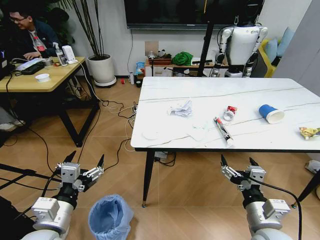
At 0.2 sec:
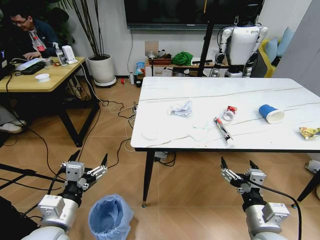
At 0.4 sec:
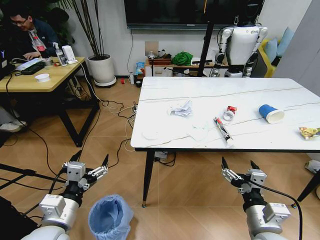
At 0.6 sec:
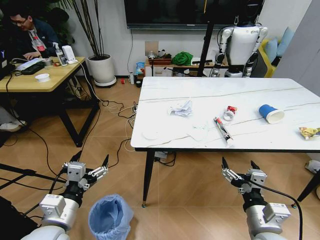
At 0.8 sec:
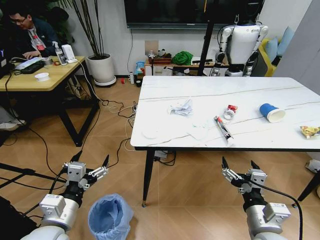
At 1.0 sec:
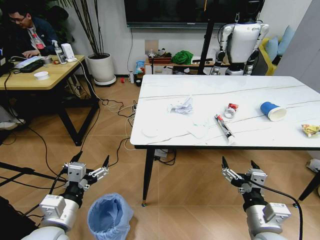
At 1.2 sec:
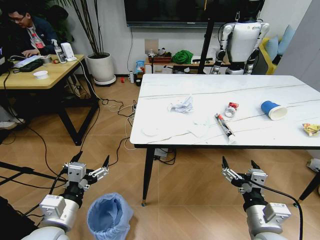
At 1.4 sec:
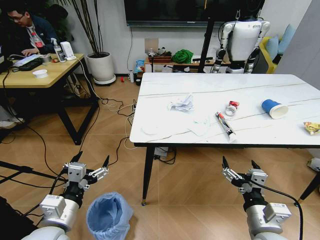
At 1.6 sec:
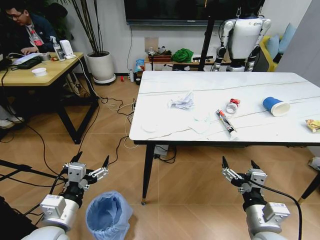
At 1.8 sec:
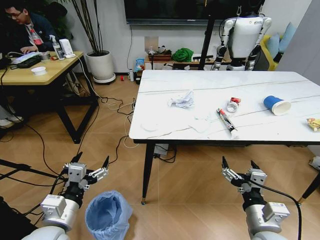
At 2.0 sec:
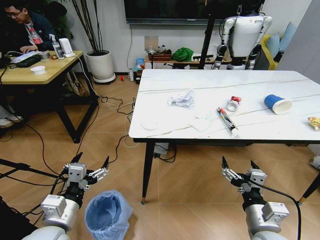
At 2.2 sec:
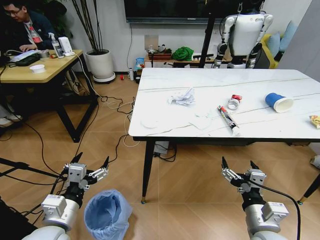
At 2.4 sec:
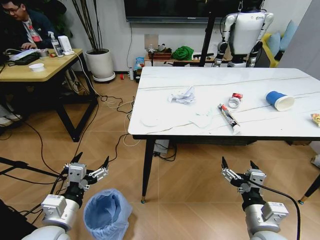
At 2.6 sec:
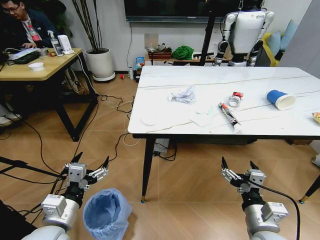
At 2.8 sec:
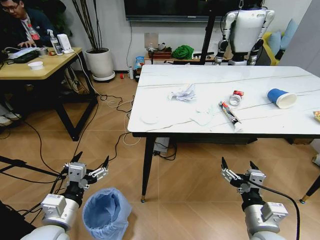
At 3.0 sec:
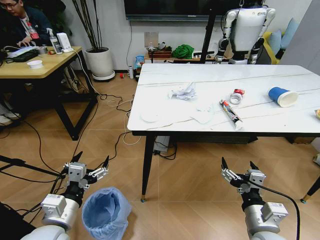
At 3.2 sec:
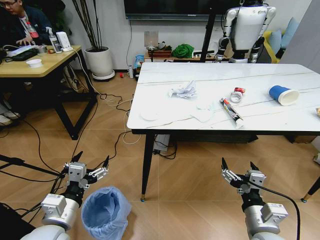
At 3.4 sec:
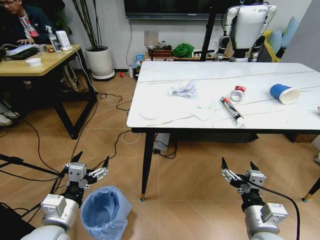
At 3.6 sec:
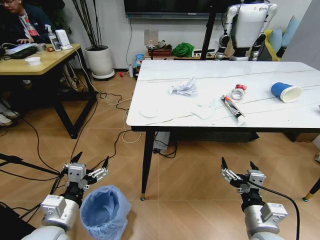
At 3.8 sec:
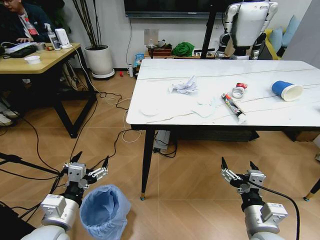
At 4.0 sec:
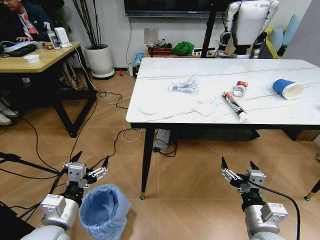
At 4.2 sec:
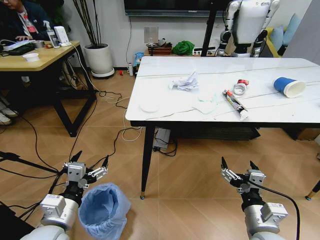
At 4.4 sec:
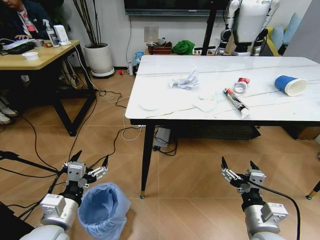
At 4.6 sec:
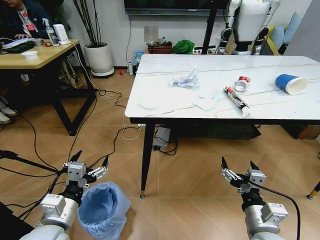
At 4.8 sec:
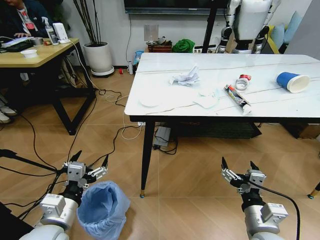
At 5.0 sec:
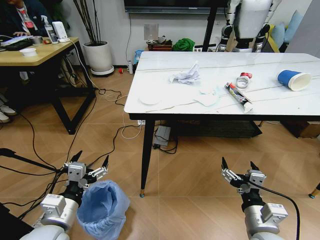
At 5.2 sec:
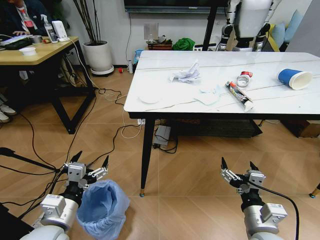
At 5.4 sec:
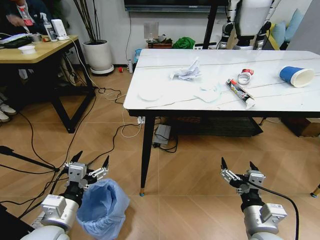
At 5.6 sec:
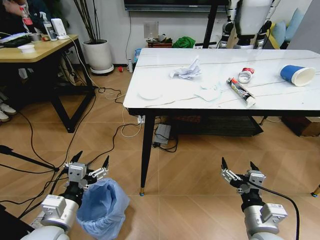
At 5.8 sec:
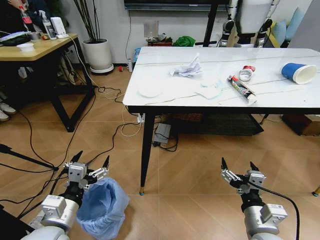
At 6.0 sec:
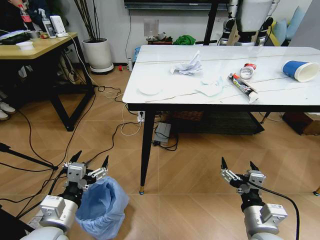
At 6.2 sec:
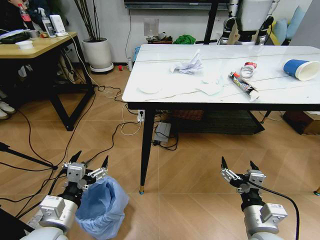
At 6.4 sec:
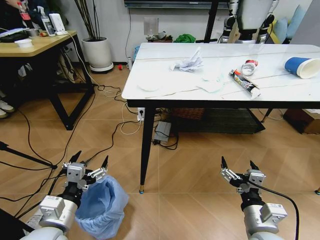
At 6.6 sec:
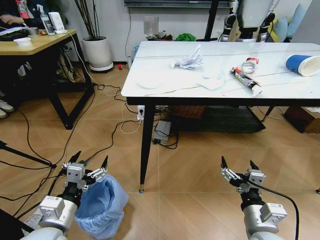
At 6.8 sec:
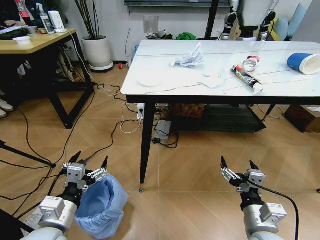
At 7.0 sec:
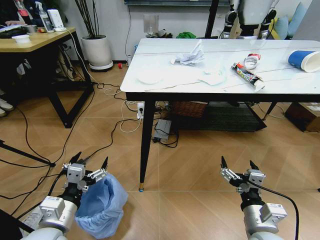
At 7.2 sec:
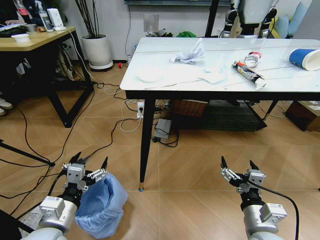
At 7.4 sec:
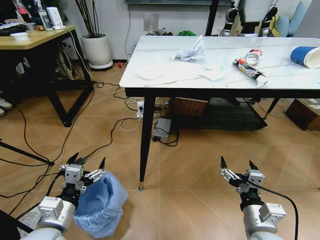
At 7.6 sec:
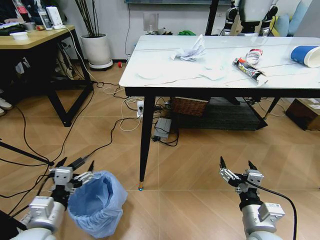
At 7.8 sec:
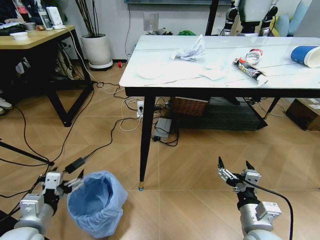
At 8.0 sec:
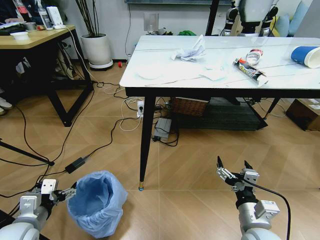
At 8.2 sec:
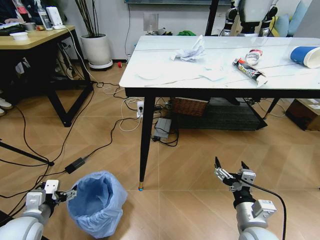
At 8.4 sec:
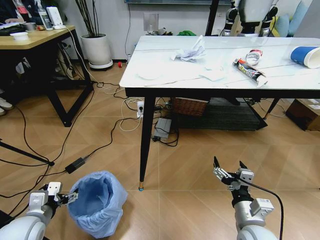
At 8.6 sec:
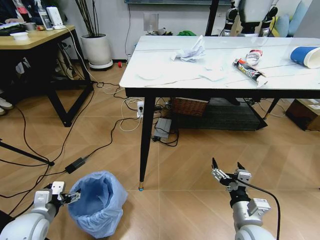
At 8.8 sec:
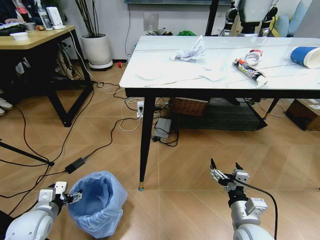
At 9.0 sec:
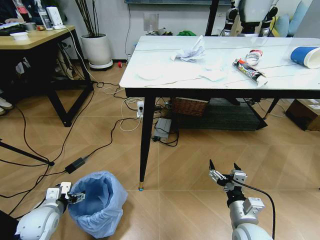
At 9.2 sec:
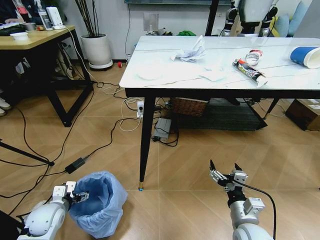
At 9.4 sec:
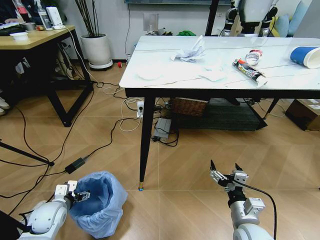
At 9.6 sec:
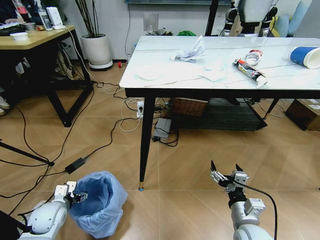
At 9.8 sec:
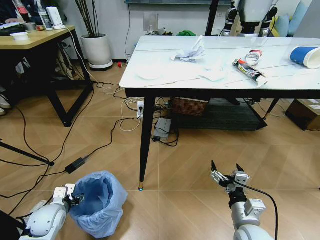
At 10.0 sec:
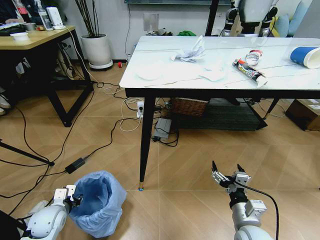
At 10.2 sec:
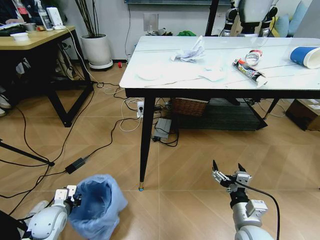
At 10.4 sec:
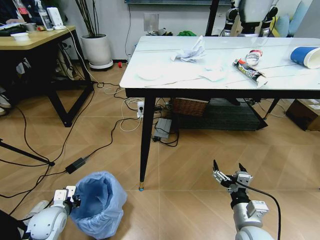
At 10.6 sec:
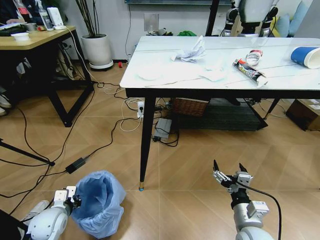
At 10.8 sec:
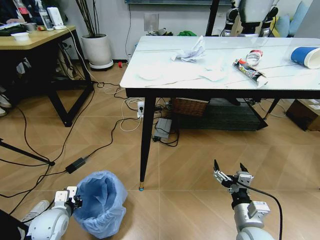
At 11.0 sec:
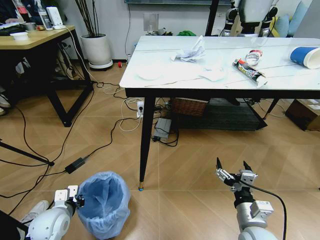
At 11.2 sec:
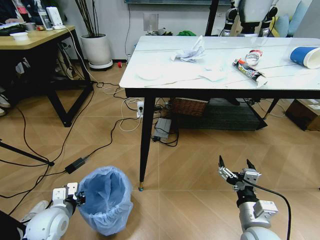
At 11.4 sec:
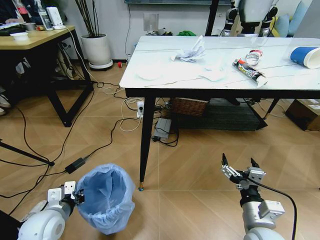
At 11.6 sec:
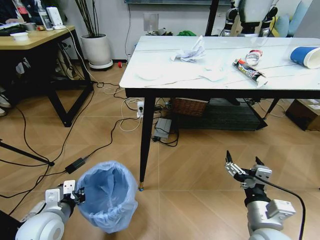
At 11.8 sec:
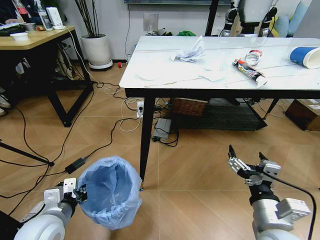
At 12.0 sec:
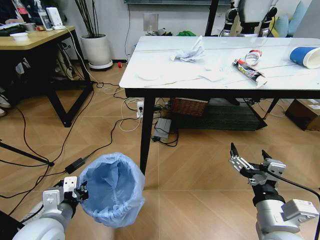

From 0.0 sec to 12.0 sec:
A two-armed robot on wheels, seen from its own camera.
Task of the whole recording: Pick up the trash bin and place the trash from the table into it.
From 7.6 sec to 9.0 sec: The left gripper is displaced downward, forward and to the left by approximately 15 cm. Meanwhile the right gripper changes place by approximately 5 cm.
From 9.0 sec to 10.4 sec: The left gripper closes its fingers.
From 10.4 sec to 12.0 sec: The left gripper heads upward, to the right and backward, covering about 20 cm; the right gripper is displaced upward by some 10 cm.

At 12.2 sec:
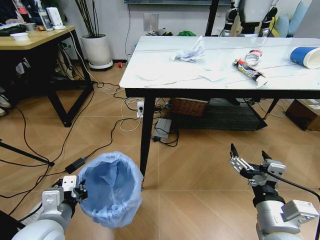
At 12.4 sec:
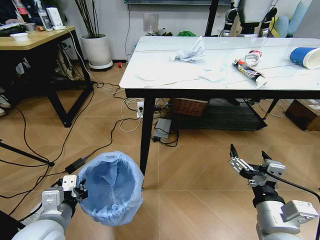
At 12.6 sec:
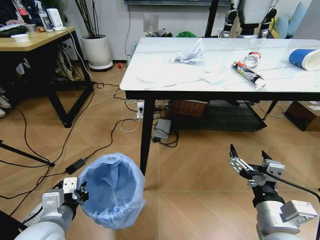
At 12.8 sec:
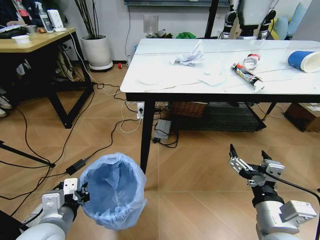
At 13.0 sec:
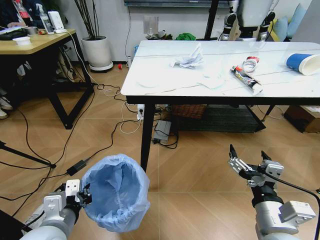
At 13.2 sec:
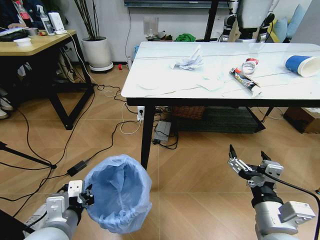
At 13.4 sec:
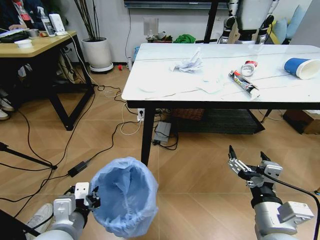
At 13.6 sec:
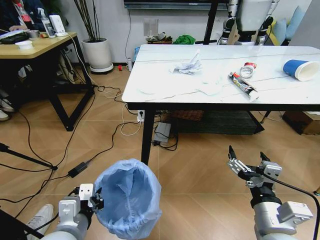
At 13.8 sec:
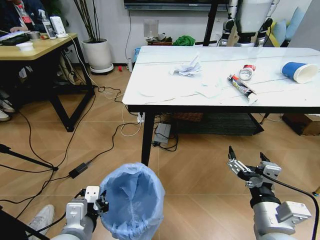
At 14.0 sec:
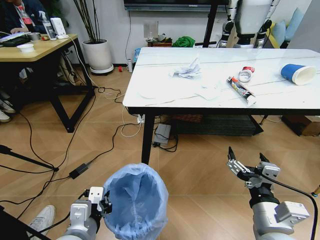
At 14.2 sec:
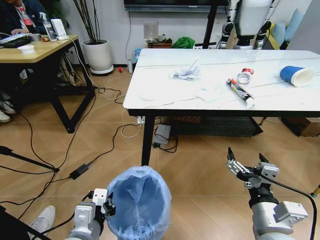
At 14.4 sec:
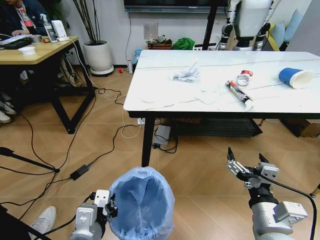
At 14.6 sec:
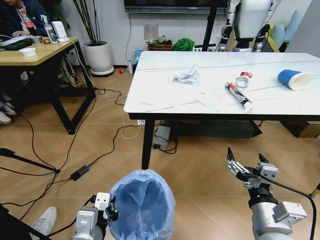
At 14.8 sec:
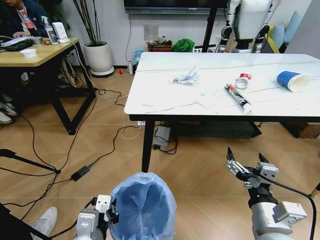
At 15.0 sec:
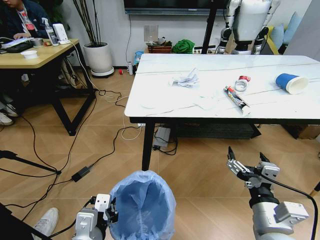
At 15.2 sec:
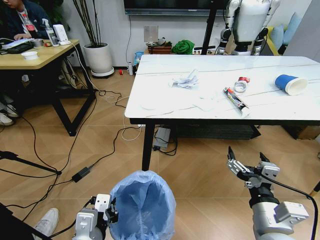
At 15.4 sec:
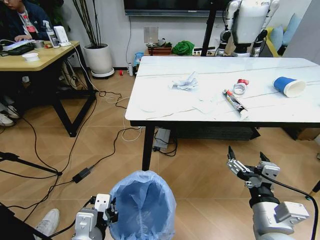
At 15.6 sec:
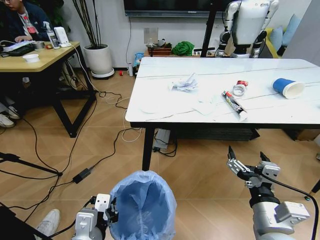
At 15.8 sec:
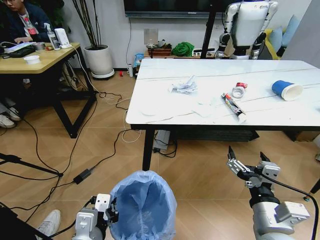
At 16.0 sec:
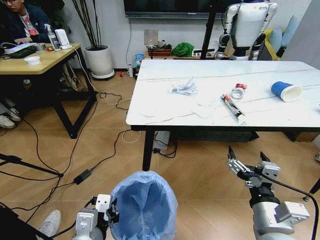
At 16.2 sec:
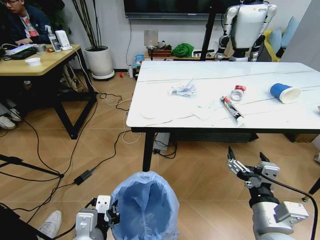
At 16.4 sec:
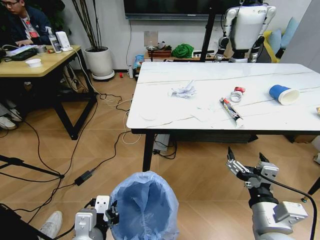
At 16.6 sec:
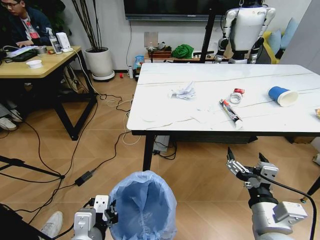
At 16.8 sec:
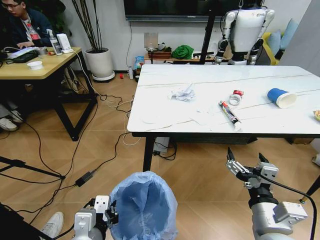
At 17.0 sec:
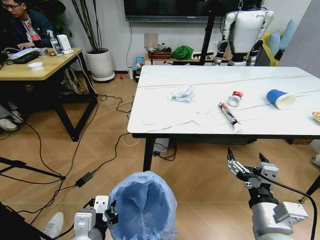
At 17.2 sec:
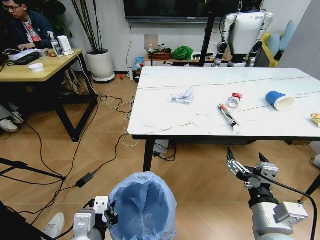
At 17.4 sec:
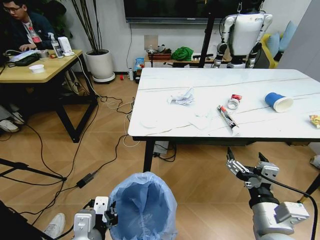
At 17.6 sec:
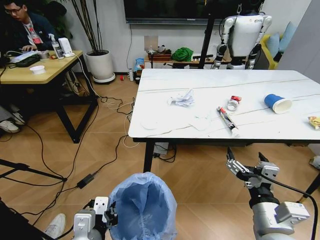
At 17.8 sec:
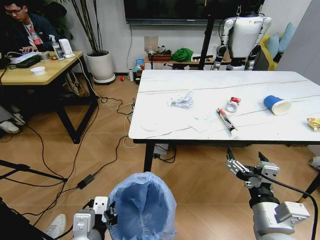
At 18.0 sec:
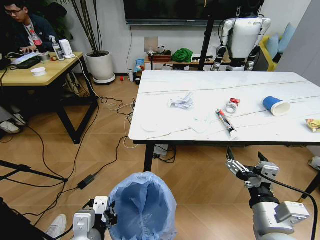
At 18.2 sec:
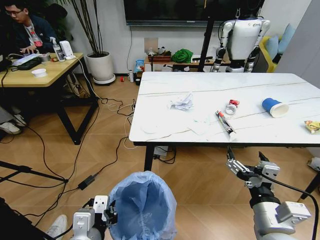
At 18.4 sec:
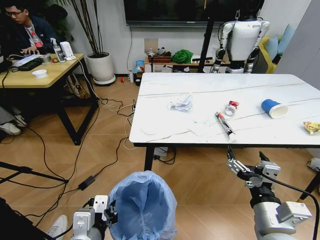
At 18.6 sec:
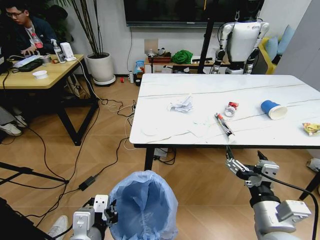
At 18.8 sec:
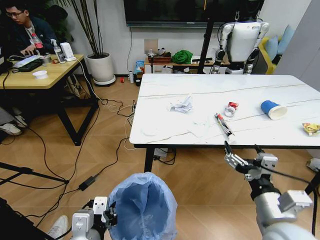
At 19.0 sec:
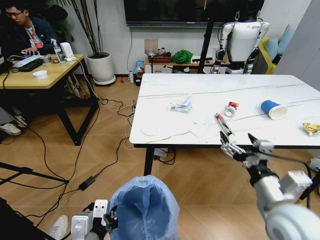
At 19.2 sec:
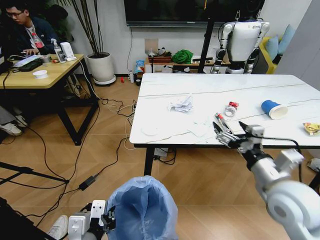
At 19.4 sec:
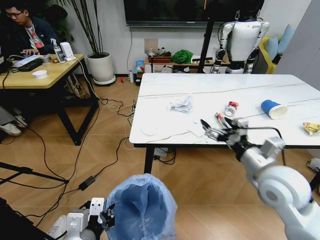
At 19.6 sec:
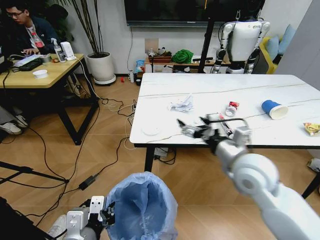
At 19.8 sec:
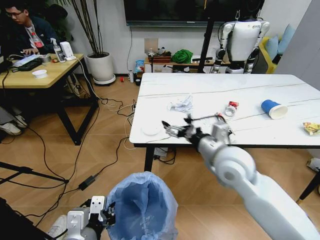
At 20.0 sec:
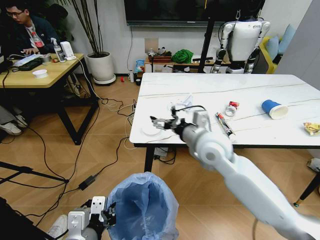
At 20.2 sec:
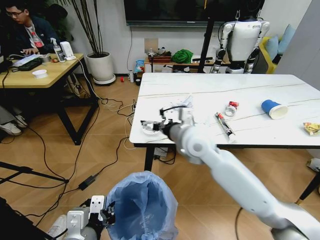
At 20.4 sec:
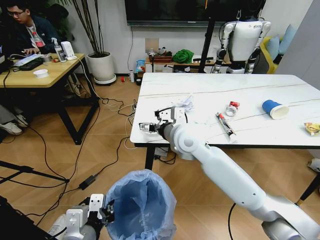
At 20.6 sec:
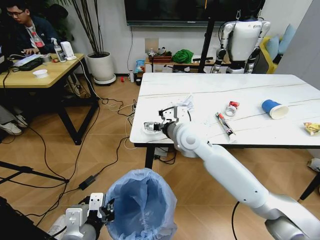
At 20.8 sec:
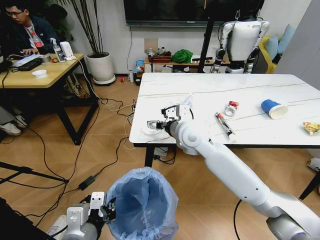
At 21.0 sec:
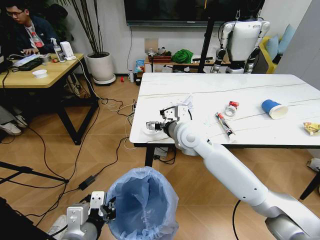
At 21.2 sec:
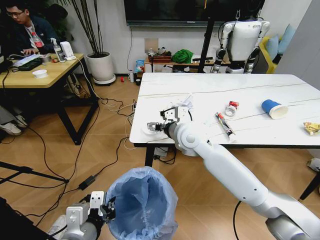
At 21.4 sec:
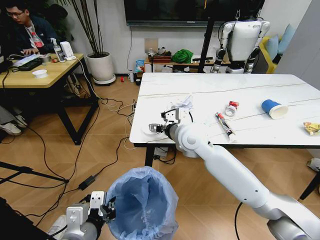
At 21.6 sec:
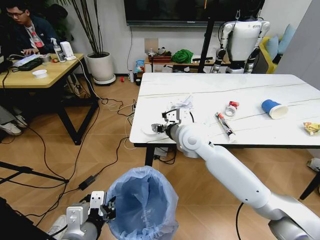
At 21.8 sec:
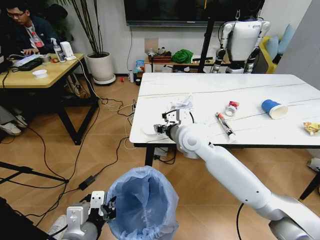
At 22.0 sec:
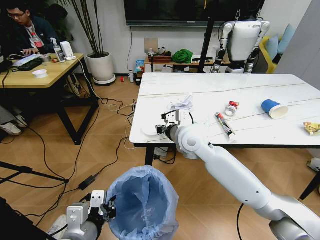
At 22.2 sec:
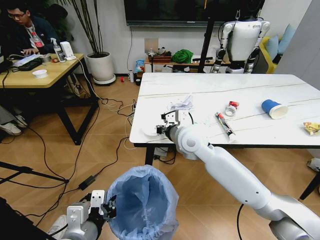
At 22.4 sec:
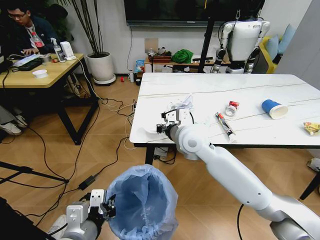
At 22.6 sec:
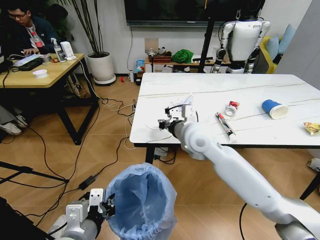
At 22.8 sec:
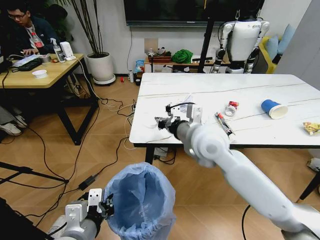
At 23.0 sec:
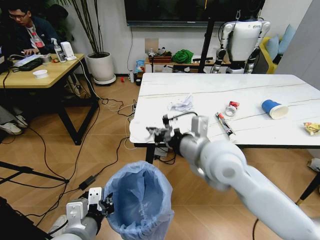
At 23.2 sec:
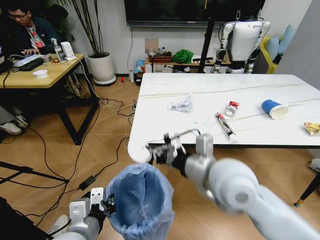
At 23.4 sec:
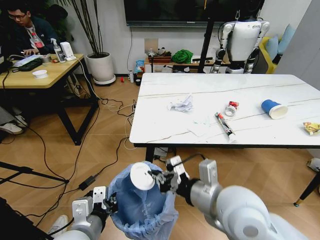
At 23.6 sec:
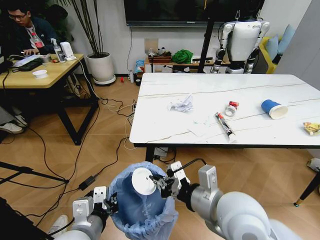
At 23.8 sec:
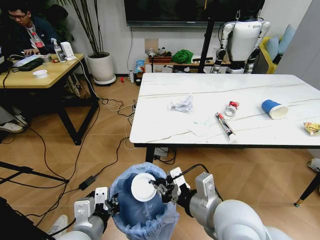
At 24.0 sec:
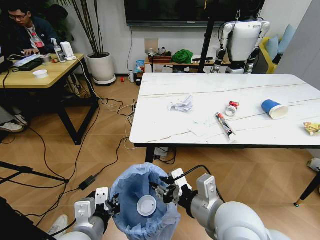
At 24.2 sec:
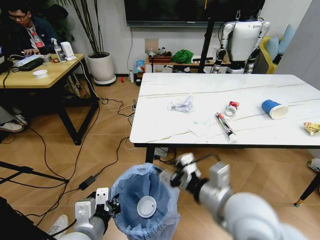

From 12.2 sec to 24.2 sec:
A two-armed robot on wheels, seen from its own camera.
Task of the whole recording: Pick up the trash bin and place the trash from the table into it.
From 12.2 sec to 13.8 sec: The left gripper goes some 5 cm to the right.
From 18.2 sec to 19.8 sec: The right gripper goes about 20 cm forward.
From 19.8 sec to 21.2 sec: The right gripper moves forward and to the left, approximately 15 cm.
From 21.2 sec to 22.6 sec: The right gripper closes up.
From 22.6 sec to 24.2 sec: The right gripper goes some 20 cm backward, and opens up.
